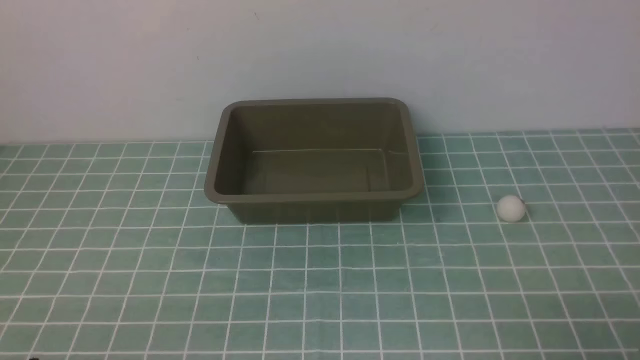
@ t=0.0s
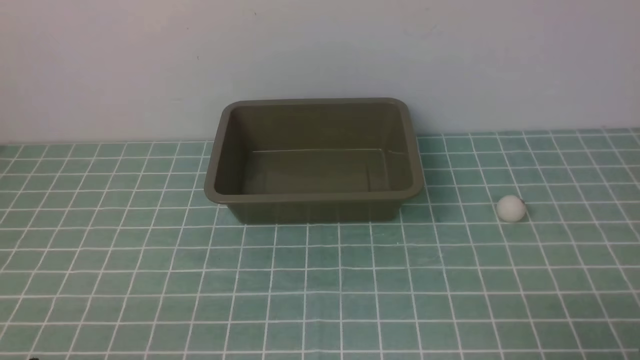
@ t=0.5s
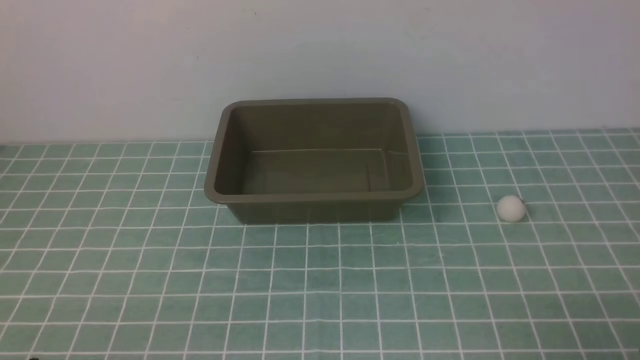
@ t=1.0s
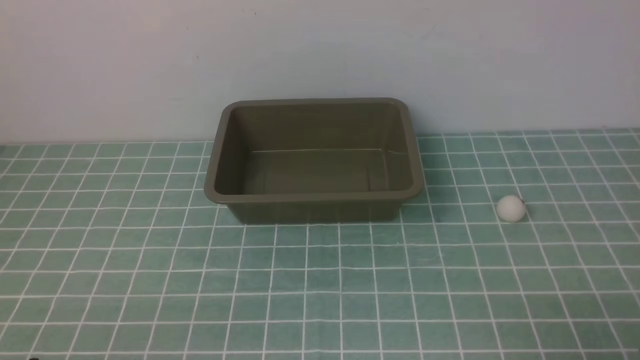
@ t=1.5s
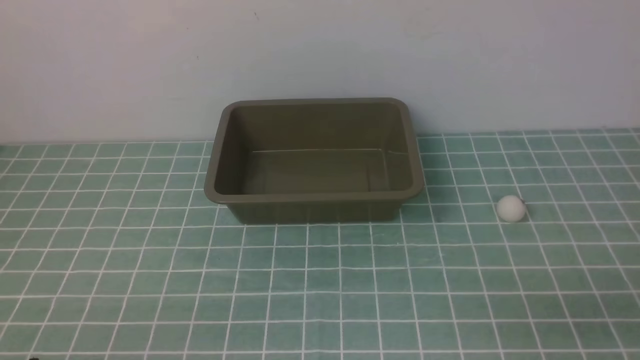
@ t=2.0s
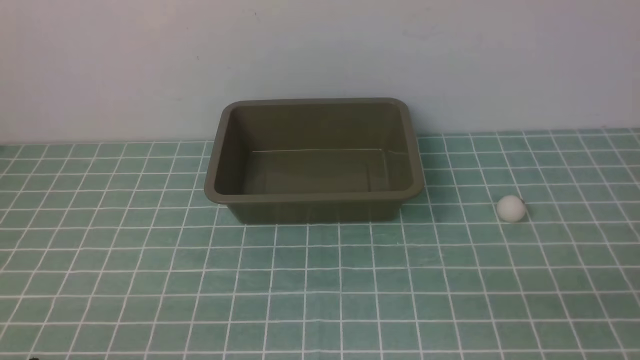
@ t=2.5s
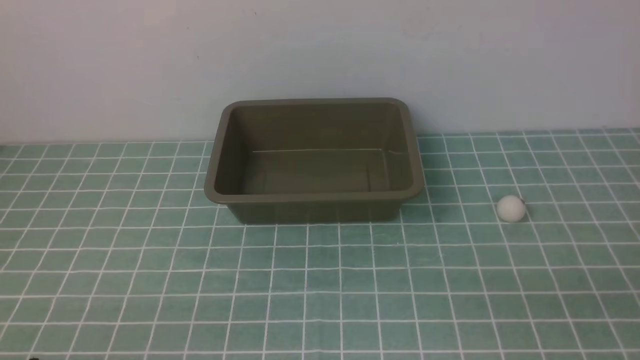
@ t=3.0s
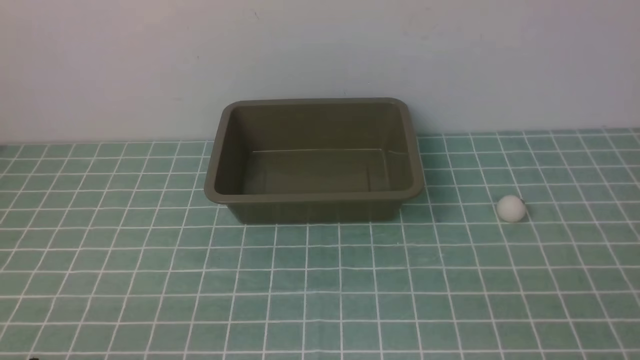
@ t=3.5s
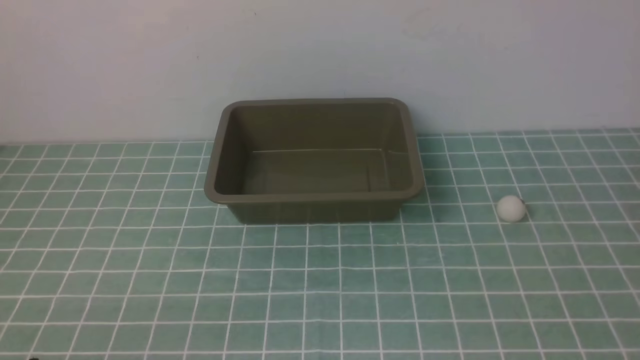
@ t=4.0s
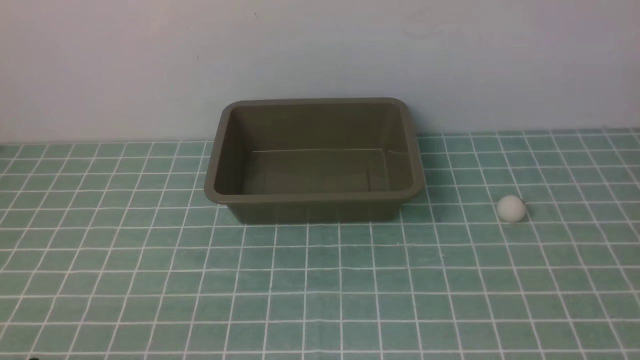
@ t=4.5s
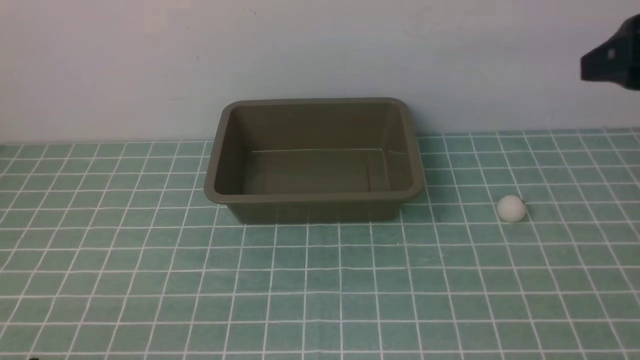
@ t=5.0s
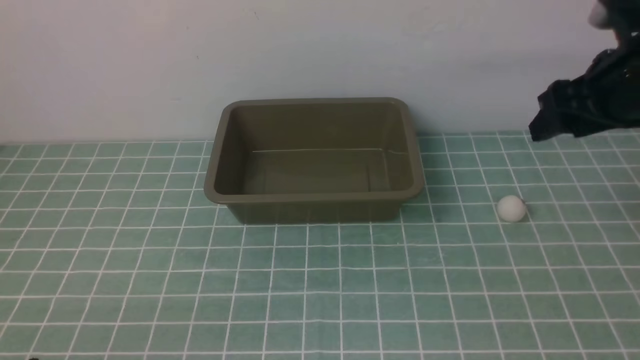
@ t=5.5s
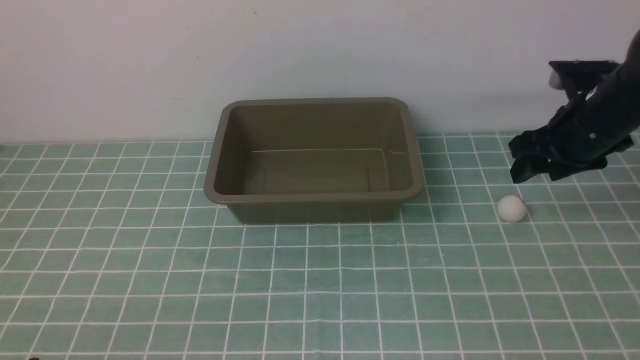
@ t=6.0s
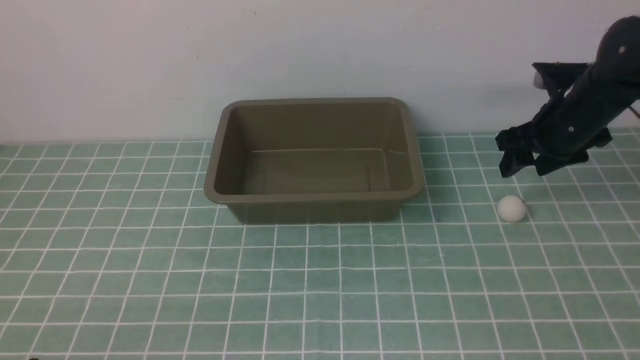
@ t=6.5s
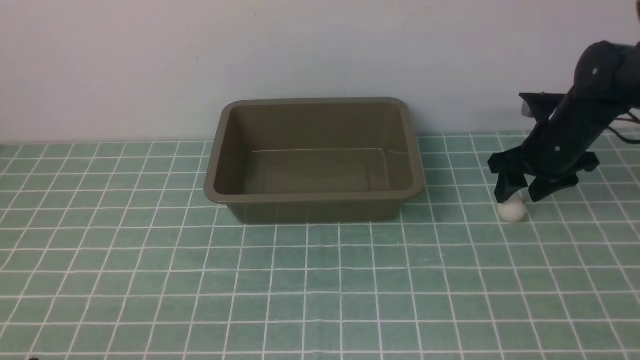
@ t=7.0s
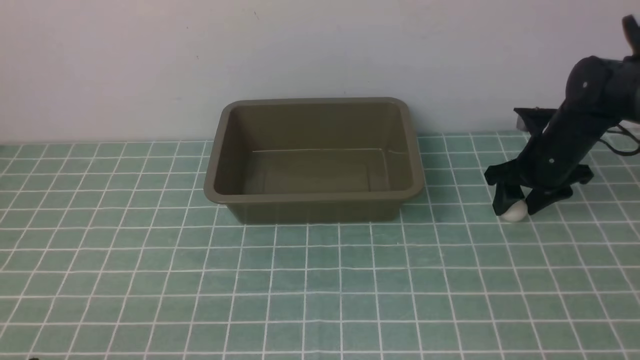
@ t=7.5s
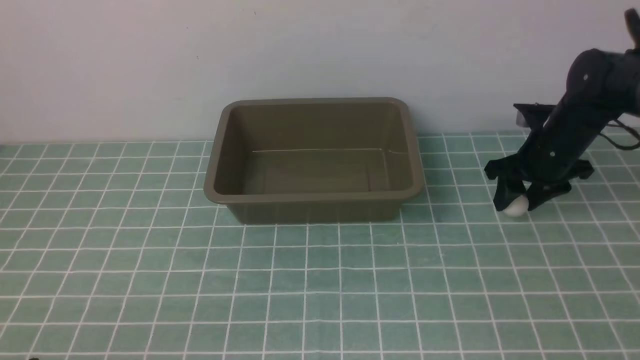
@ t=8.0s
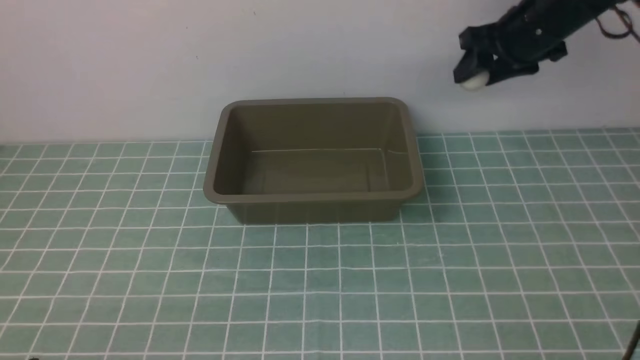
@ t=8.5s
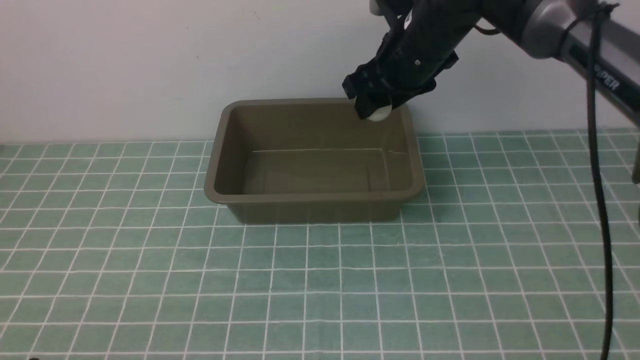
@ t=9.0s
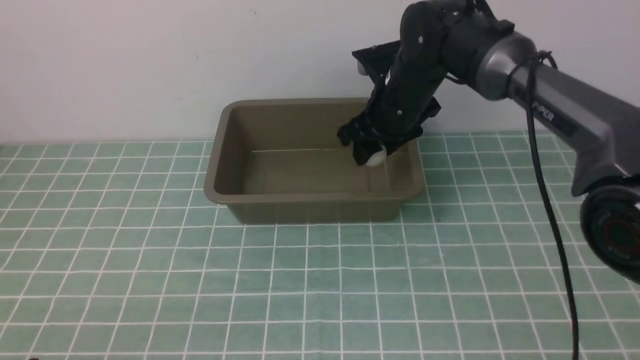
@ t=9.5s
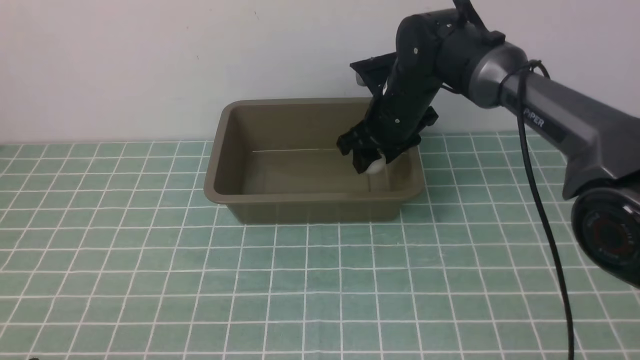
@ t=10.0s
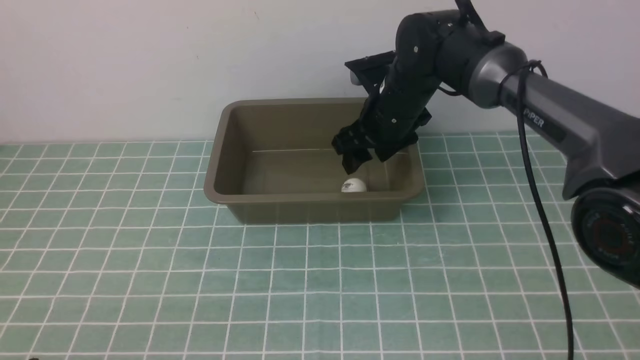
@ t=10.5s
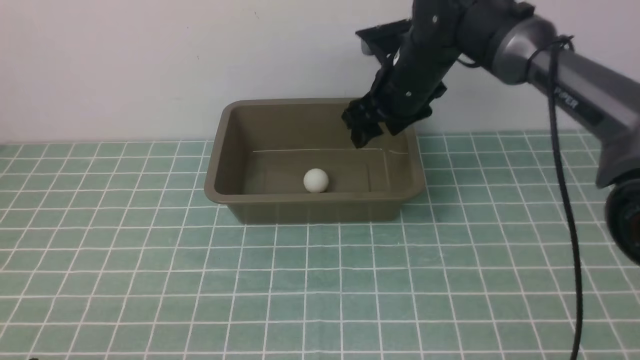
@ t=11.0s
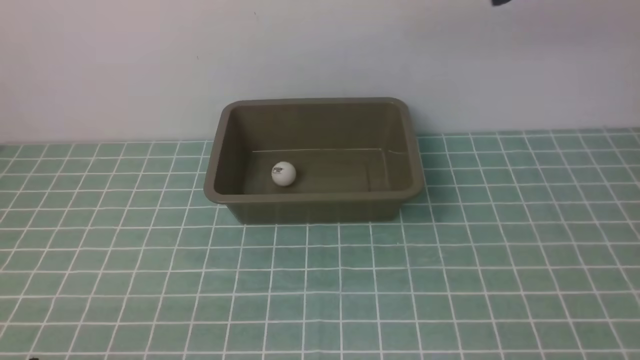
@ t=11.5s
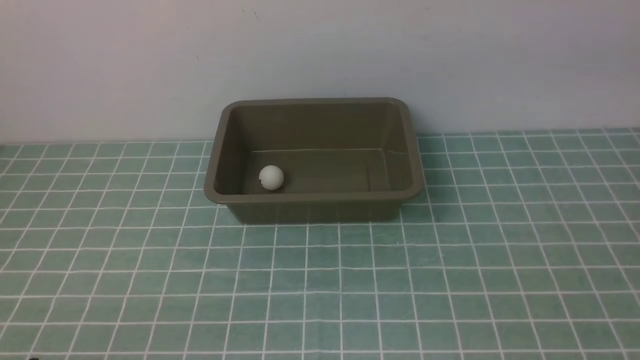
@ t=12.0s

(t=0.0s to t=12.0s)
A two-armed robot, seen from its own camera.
Step, t=0.0s - t=8.0s: use the right arm to clamp the table tennis ball closest to it.
Step, t=8.5s - t=10.5s: use the right arm to put the table tennis ball into the box.
t=4.0s - t=6.0s: The right gripper travels forward by about 40 cm.
t=6.0s - t=8.0s: The right gripper is displaced downward and forward by some 10 cm.
t=8.0s - t=10.0s: The right gripper goes approximately 20 cm to the left.
t=10.0s - t=12.0s: The right gripper travels upward, backward and to the right by about 35 cm.

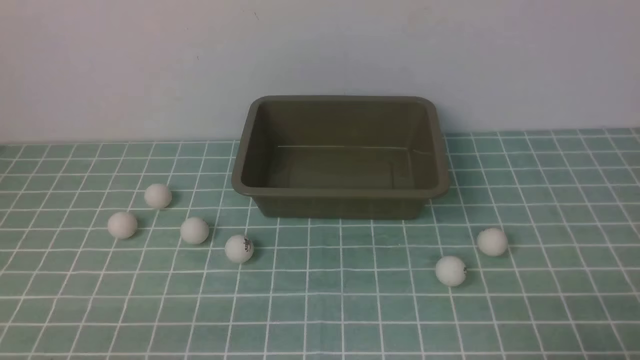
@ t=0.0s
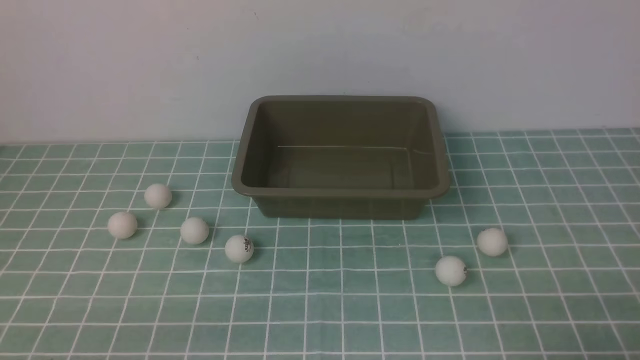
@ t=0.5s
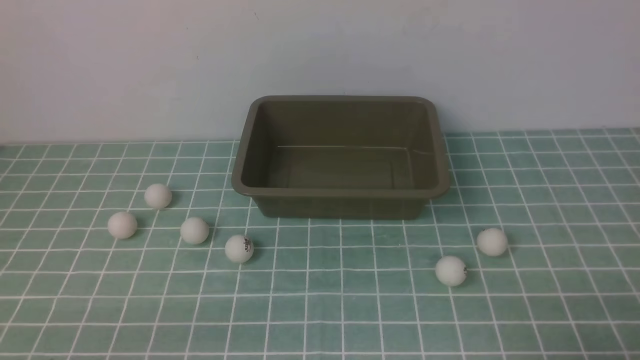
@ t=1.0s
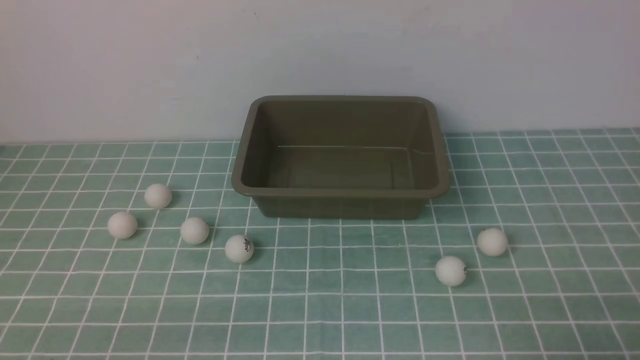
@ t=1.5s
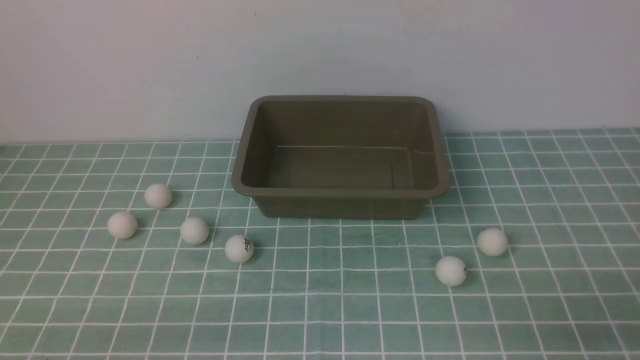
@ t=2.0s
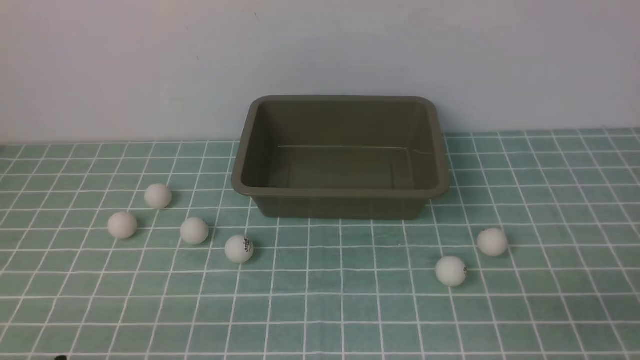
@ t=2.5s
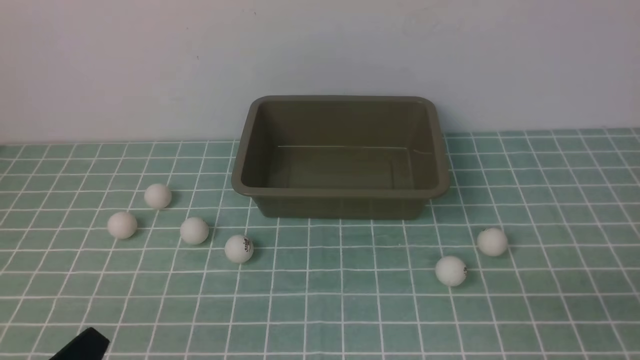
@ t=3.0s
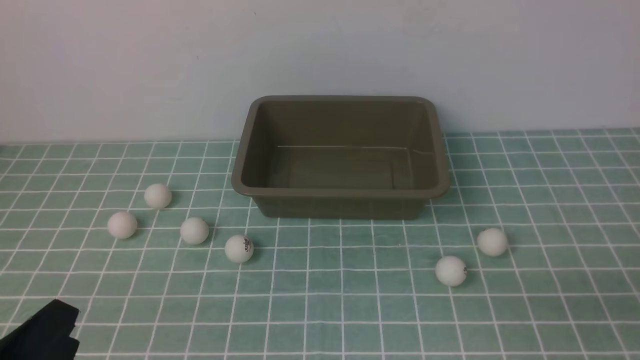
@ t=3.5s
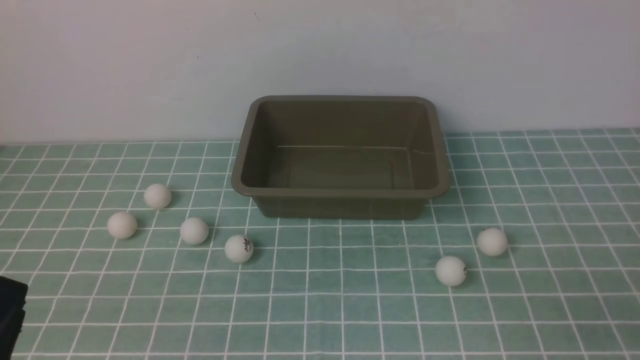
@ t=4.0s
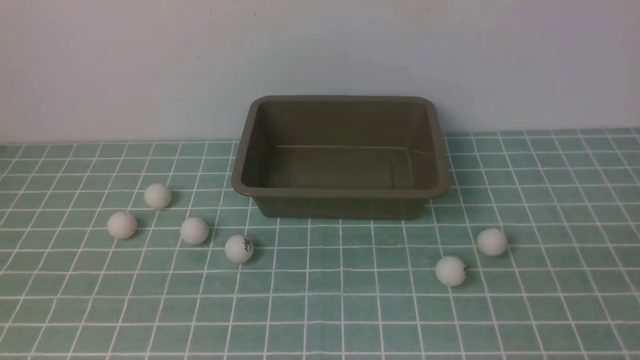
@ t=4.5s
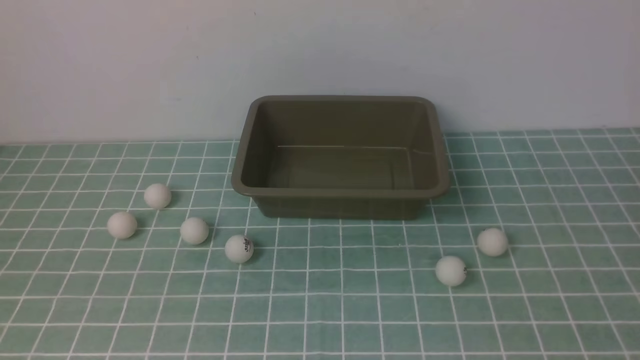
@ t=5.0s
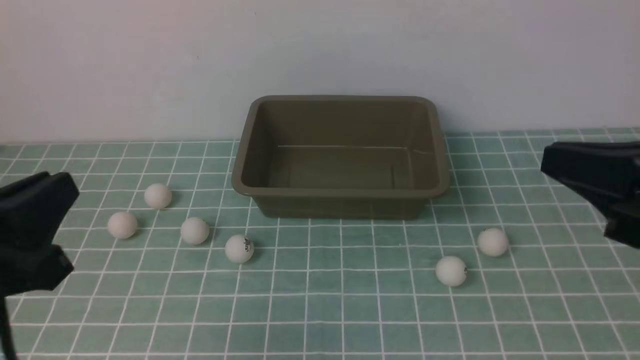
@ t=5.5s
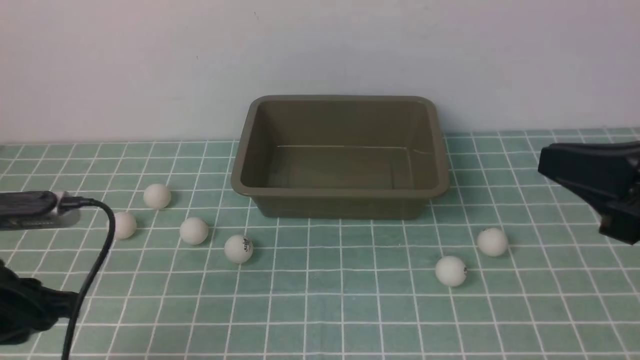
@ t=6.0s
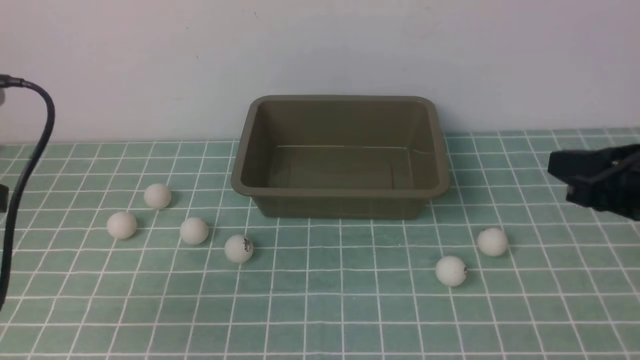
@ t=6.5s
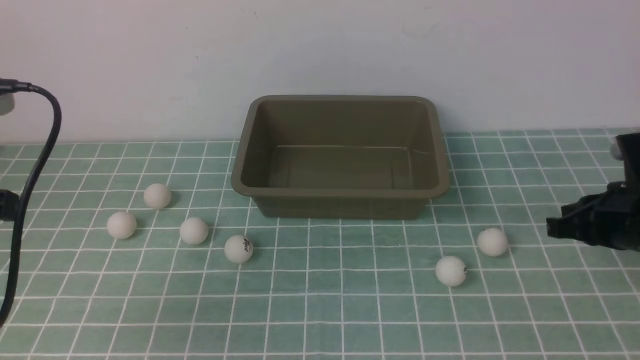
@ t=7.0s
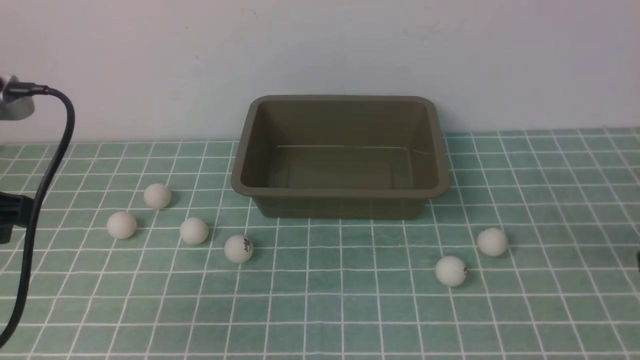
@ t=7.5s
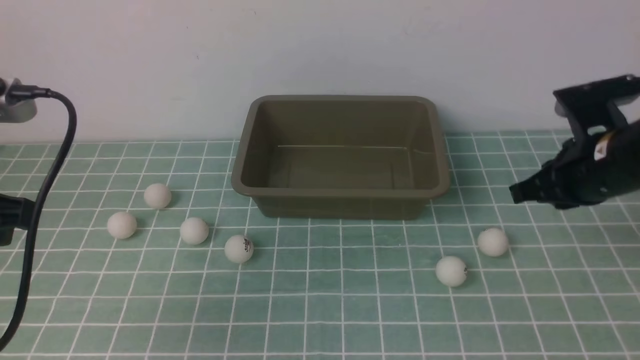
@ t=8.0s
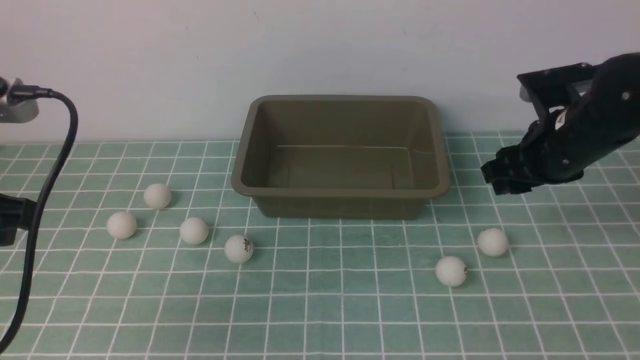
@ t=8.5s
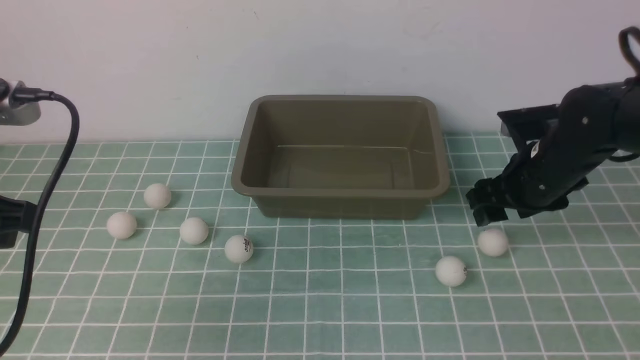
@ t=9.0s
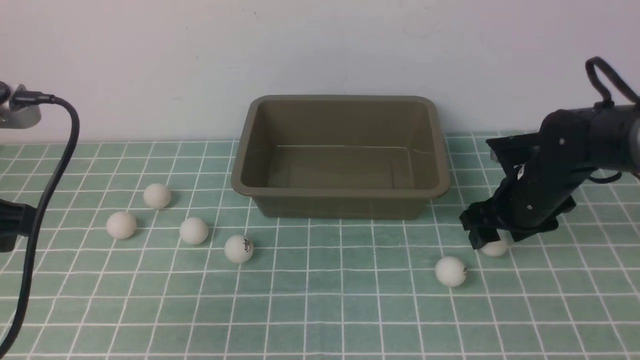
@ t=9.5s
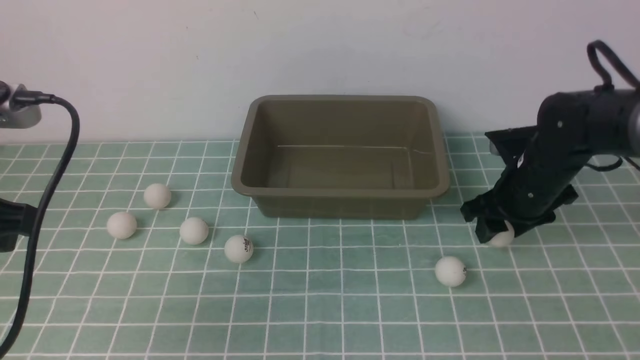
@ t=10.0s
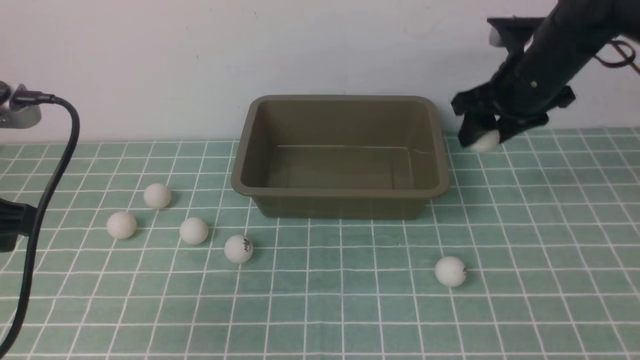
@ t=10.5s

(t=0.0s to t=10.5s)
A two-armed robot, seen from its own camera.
Step, t=0.0s - t=10.0s: use the right arm to clamp the table tennis ball closest to it.
t=2.0s - t=4.0s: The left gripper moves upward, roughly 10 cm, and closes.
t=4.0s - t=6.5s: The left gripper travels forward and upward by about 20 cm. The right gripper travels forward by some 20 cm.
t=6.5s - t=8.5s: The right gripper is displaced to the left and forward by some 10 cm, and opens up.
t=8.5s - t=10.5s: The right gripper shifts roughly 10 cm upward.
